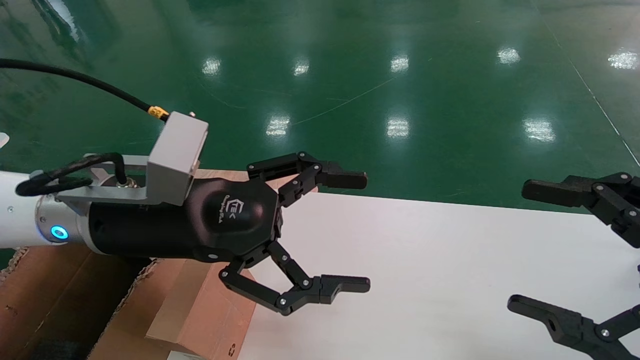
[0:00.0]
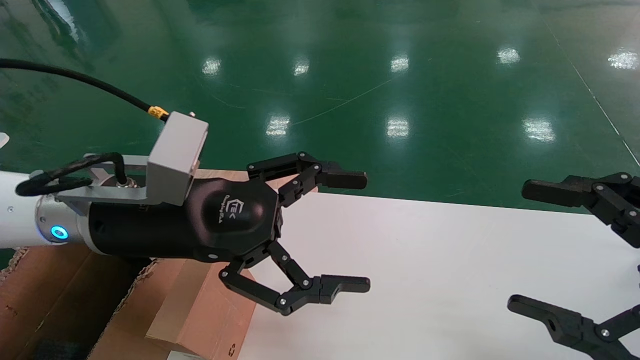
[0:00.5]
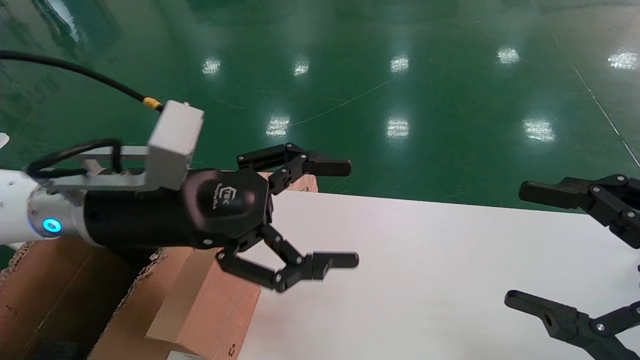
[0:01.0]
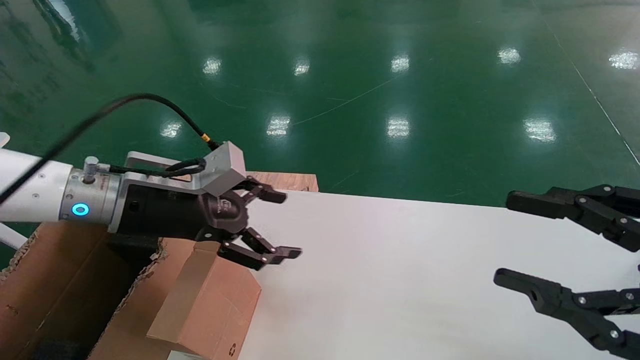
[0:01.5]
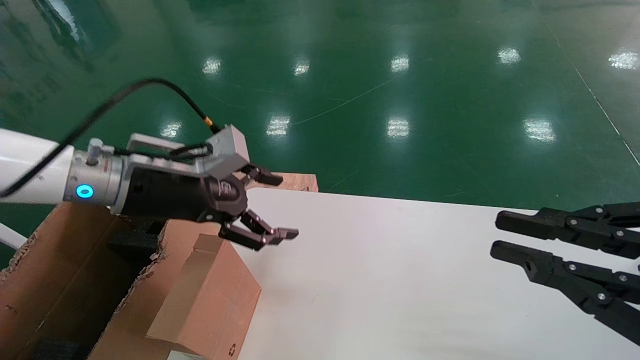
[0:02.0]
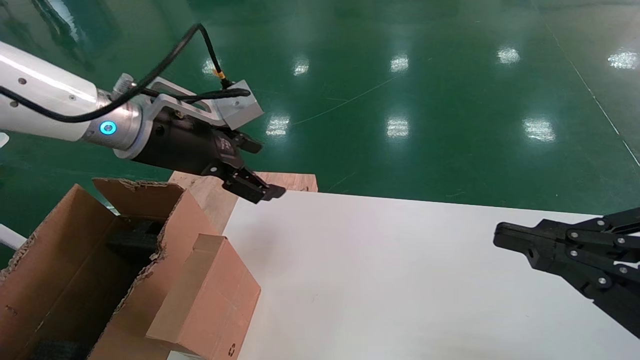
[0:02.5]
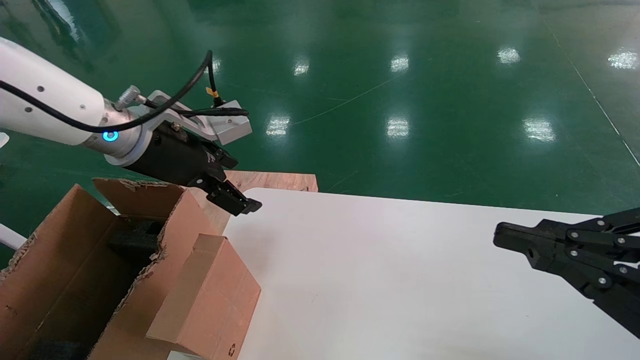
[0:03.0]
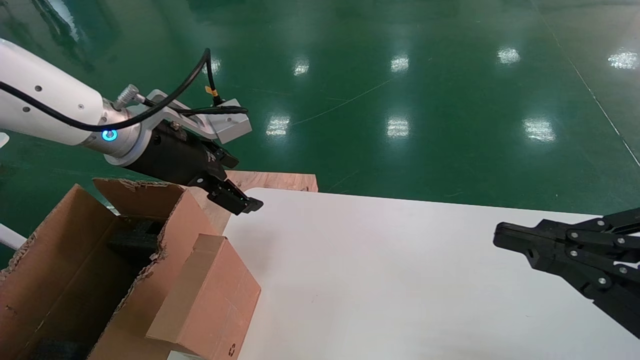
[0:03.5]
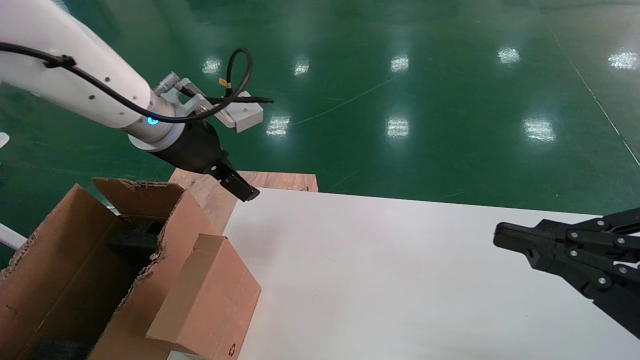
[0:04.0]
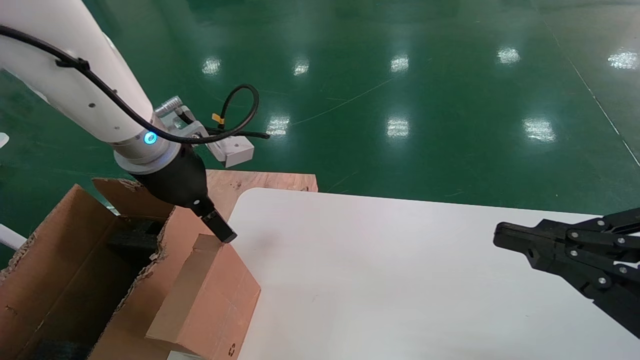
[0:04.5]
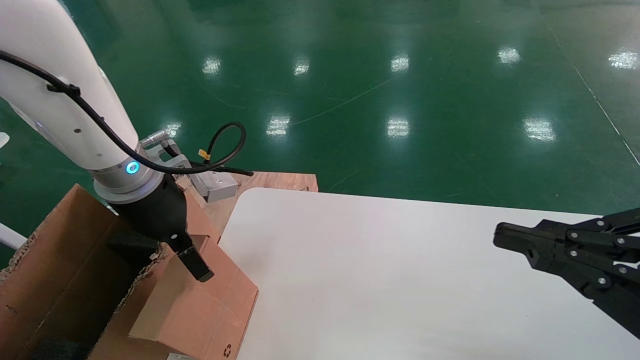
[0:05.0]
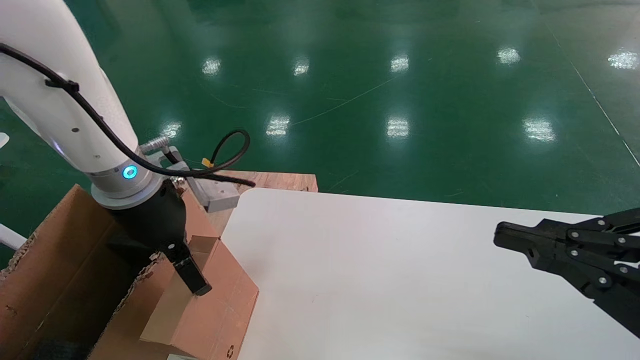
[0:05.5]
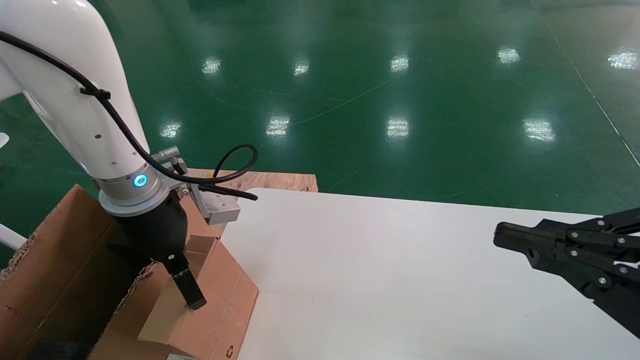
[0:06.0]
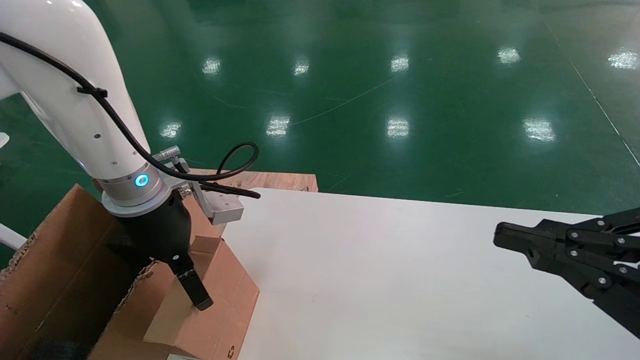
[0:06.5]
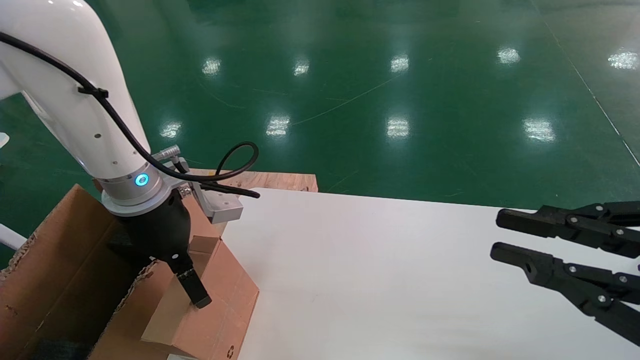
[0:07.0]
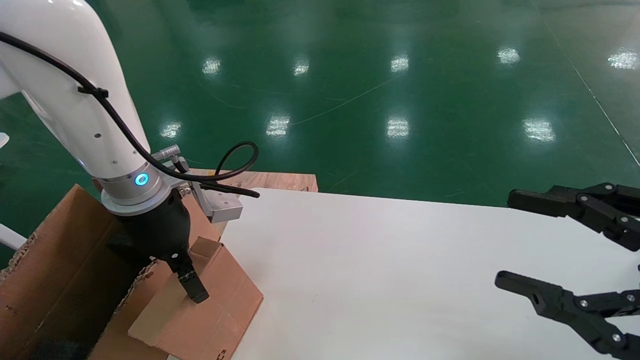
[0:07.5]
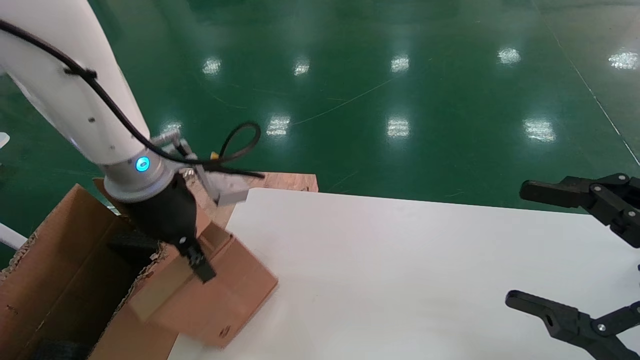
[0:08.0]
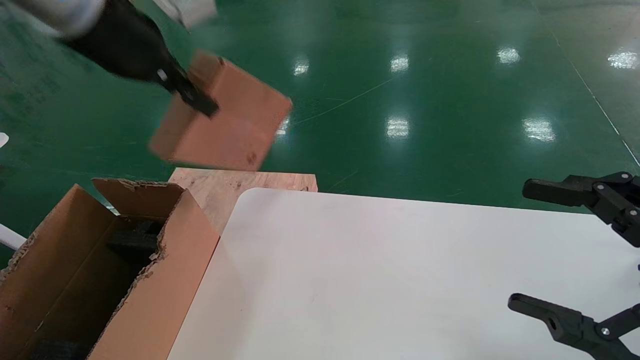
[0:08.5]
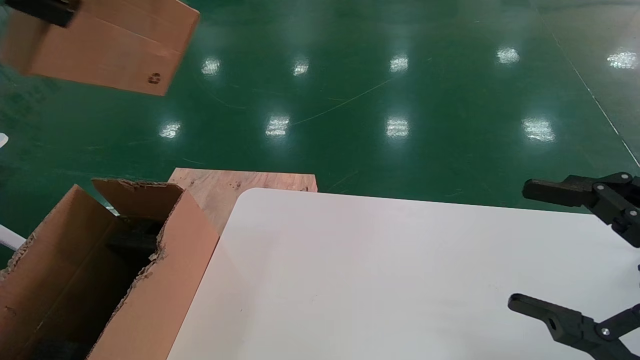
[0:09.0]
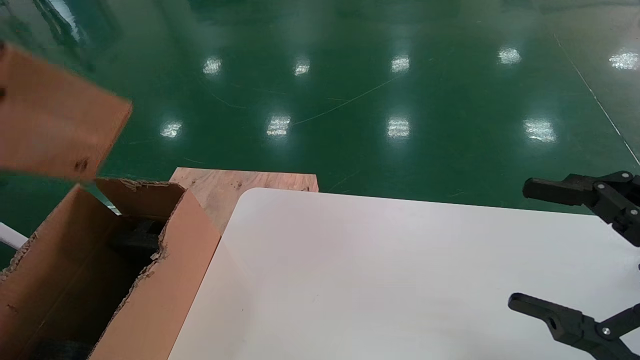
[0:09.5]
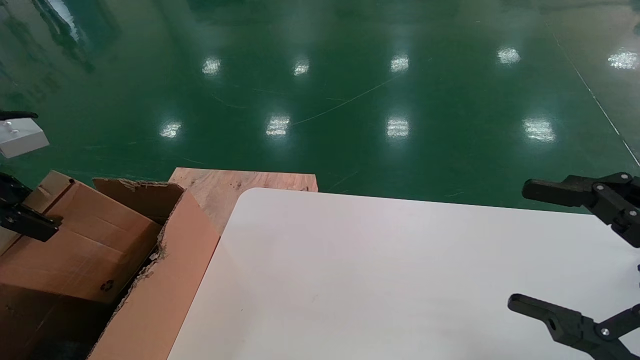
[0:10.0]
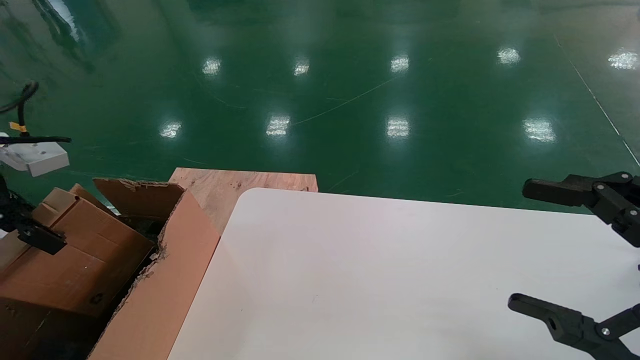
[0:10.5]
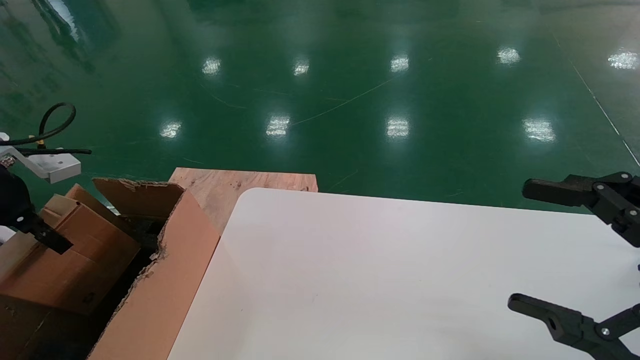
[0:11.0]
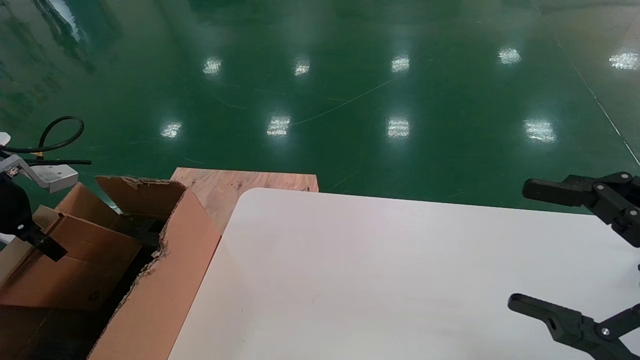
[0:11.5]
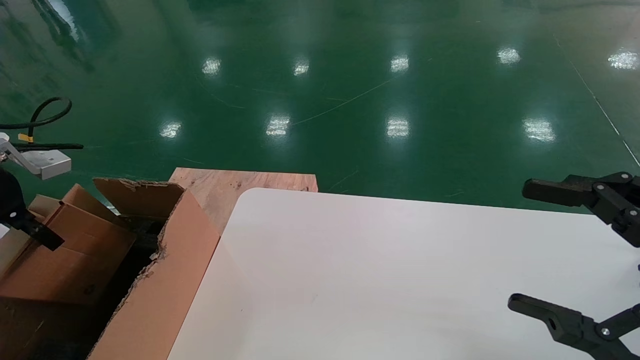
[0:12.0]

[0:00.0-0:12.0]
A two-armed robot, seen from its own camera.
Task of the whole recording: place the small box on the table into the large box on the left.
Step, 0:01.5 to 0:07.5: Pick up the mouse and the power cord paper box.
0:00.0 to 0:02.0: The right gripper closes; the left gripper travels forward and to the left by about 10 cm.
0:02.0 to 0:04.0: The left gripper ends up roughly 5 cm from where it was.
0:04.0 to 0:06.0: The left gripper moves downward, some 5 cm.
0:06.0 to 0:08.0: The right gripper opens, while the left gripper closes.
0:08.0 to 0:10.0: The left gripper travels to the left and backward by roughly 25 cm.
0:10.0 to 0:12.0: The left gripper heads downward and forward, covering about 10 cm.

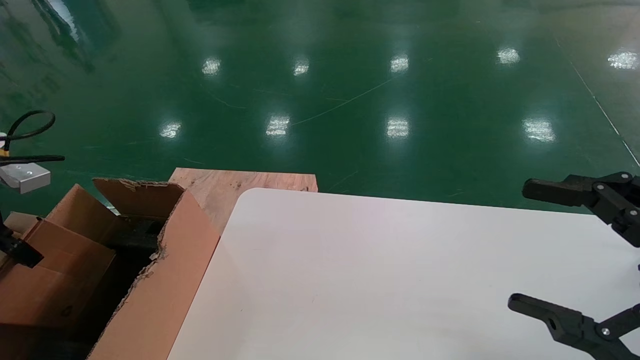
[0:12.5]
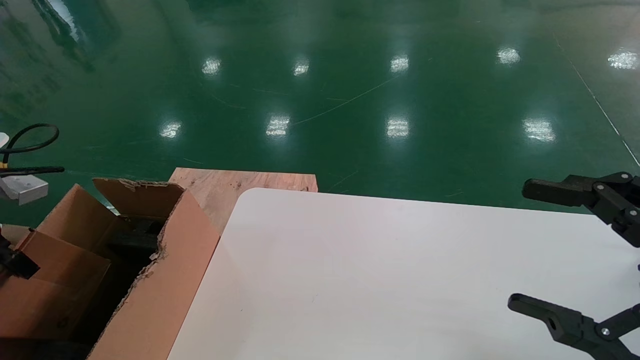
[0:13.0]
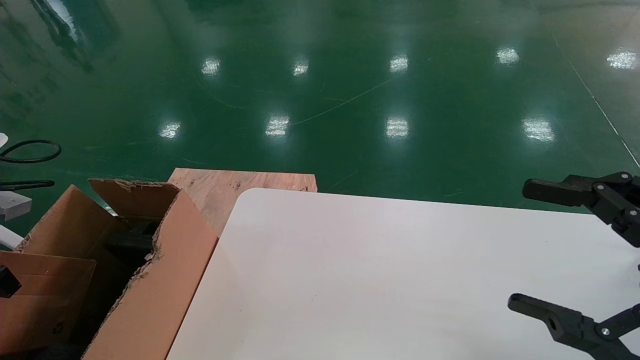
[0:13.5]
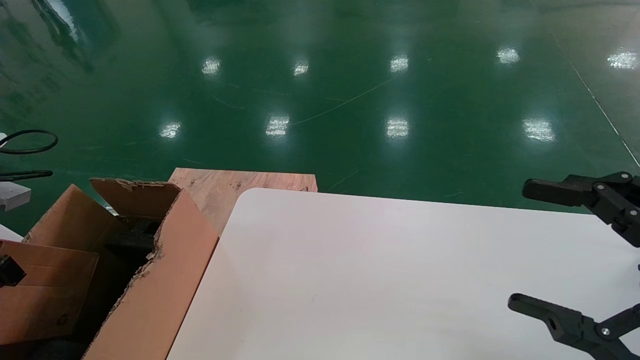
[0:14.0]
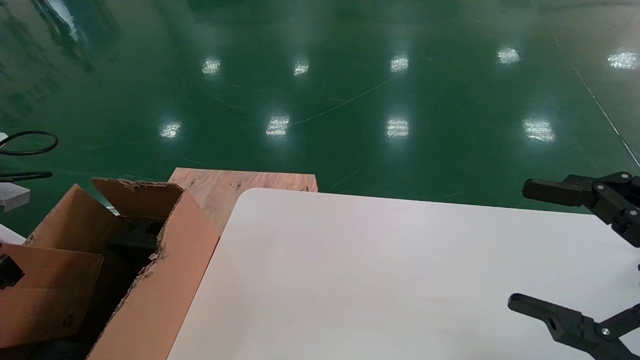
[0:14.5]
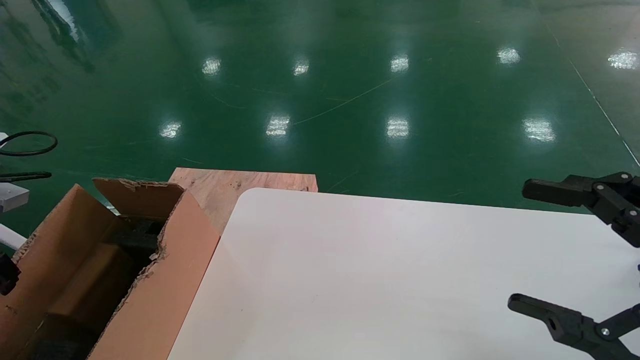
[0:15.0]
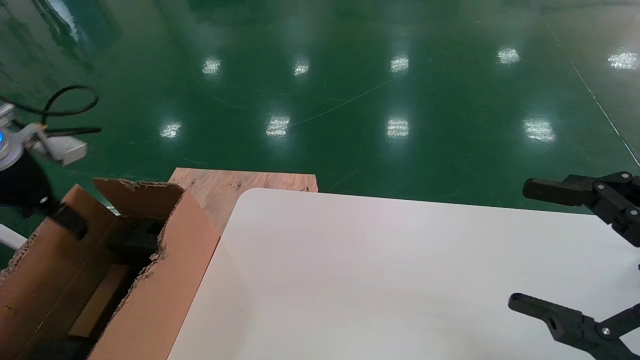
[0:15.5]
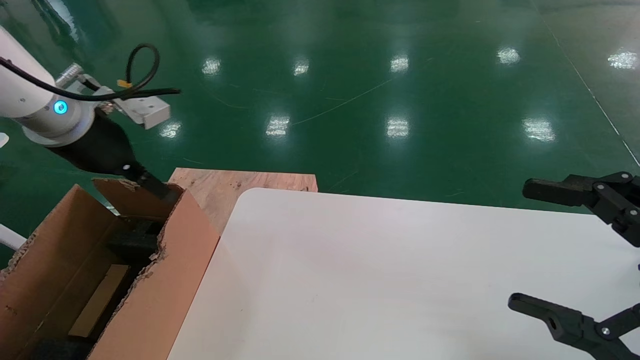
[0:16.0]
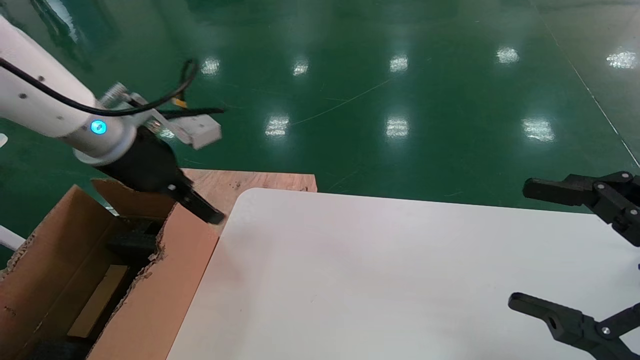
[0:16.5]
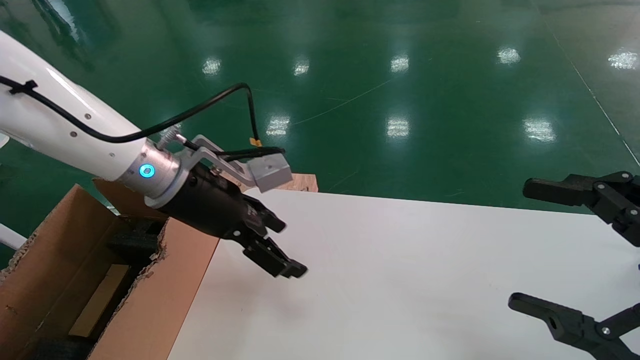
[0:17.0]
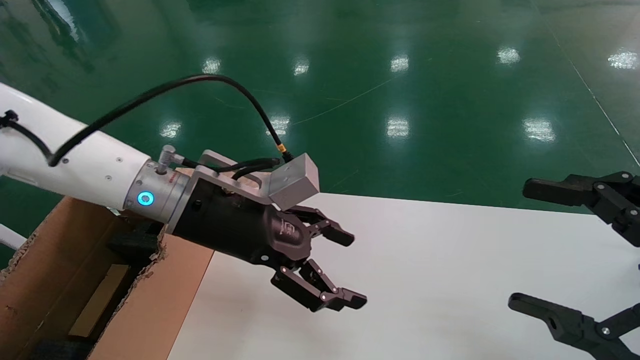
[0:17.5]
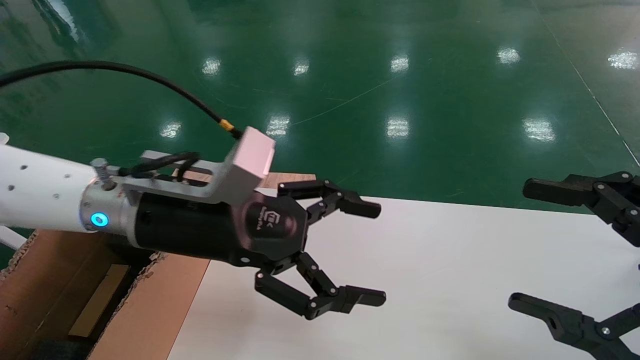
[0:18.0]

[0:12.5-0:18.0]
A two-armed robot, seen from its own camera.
Task of the whole recording: place the small box on the table into the large box on the left.
Step, 0:12.5 to 0:15.0: Place the mouse and the power cord paper box into the container.
0:12.5 to 0:14.5: The grippers move only a little.
0:14.5 to 0:16.0: The left gripper goes about 20 cm to the right and upward, and opens up.
0:16.0 to 0:18.0: The left gripper goes about 20 cm to the right.
